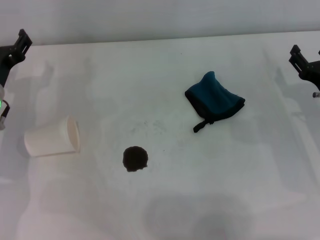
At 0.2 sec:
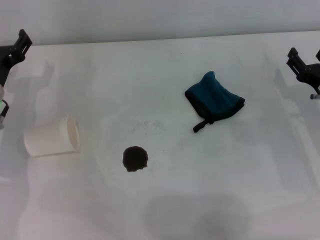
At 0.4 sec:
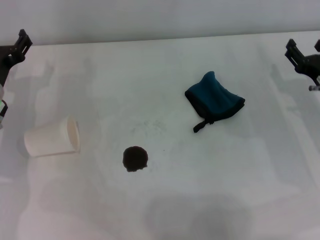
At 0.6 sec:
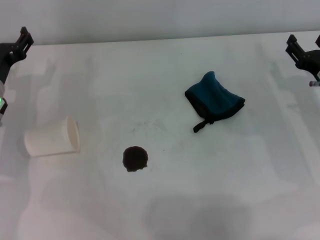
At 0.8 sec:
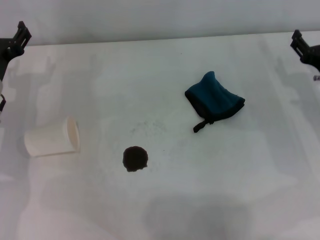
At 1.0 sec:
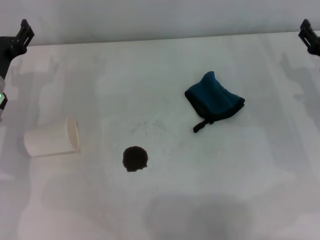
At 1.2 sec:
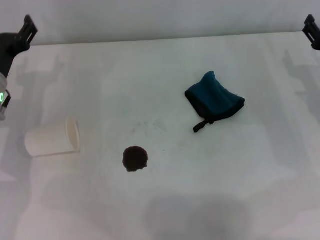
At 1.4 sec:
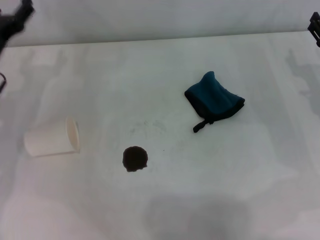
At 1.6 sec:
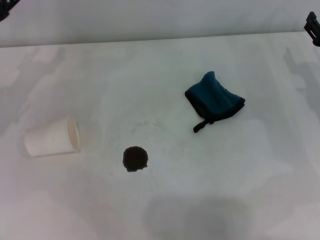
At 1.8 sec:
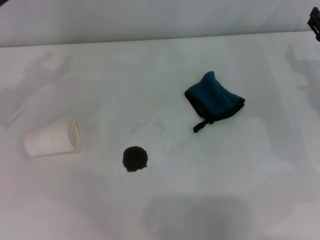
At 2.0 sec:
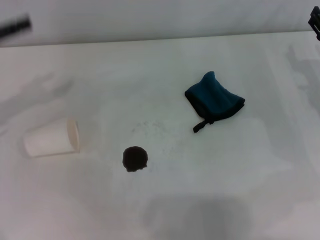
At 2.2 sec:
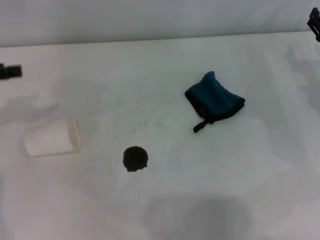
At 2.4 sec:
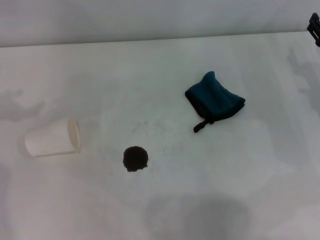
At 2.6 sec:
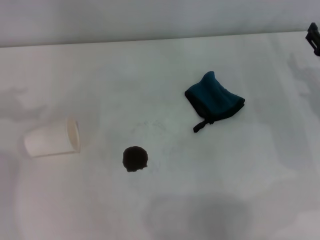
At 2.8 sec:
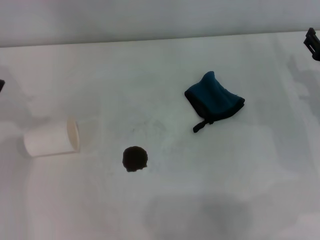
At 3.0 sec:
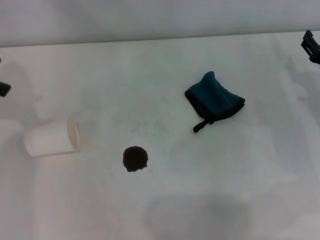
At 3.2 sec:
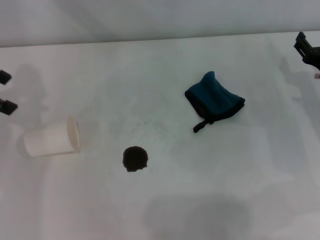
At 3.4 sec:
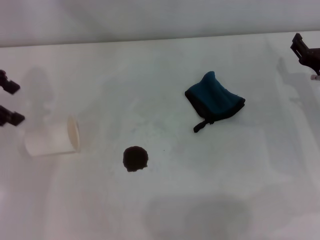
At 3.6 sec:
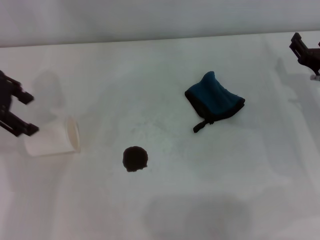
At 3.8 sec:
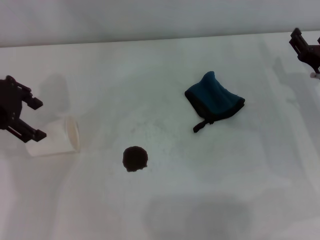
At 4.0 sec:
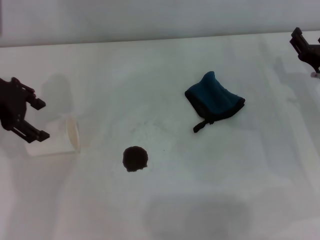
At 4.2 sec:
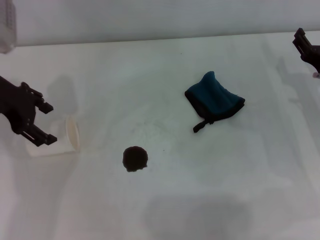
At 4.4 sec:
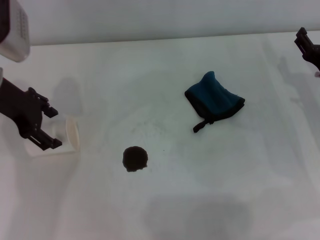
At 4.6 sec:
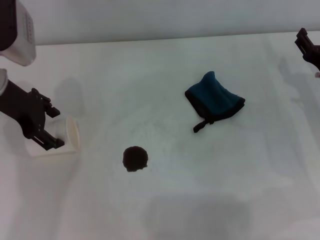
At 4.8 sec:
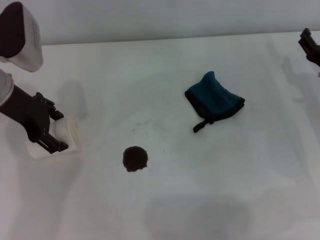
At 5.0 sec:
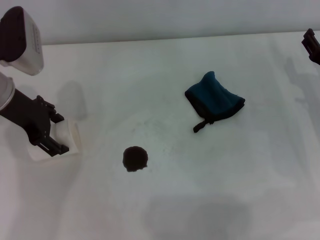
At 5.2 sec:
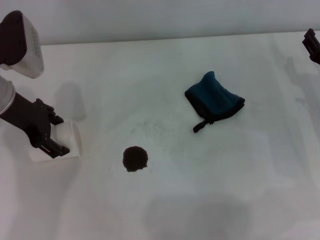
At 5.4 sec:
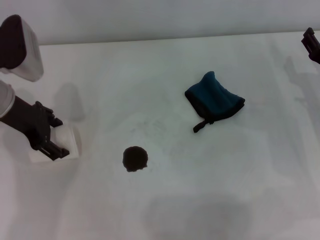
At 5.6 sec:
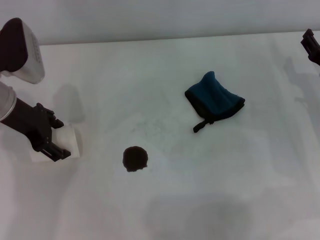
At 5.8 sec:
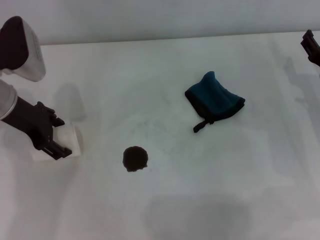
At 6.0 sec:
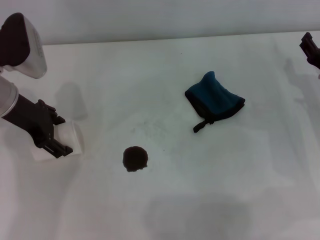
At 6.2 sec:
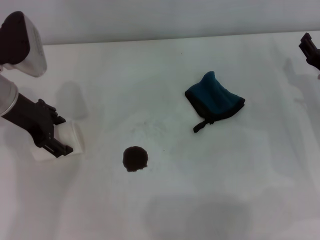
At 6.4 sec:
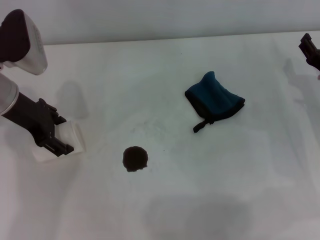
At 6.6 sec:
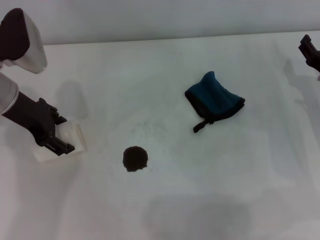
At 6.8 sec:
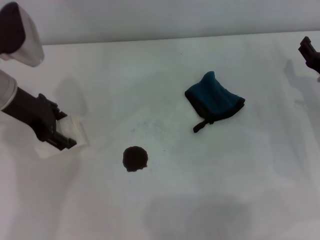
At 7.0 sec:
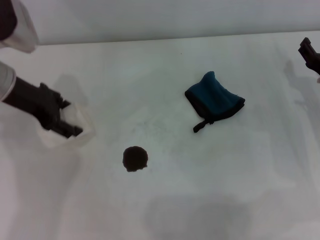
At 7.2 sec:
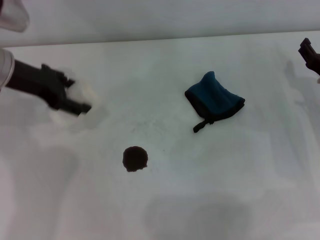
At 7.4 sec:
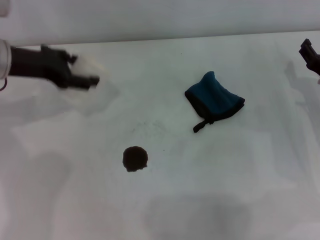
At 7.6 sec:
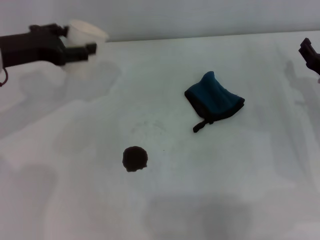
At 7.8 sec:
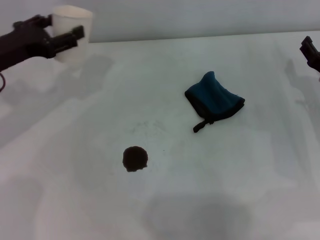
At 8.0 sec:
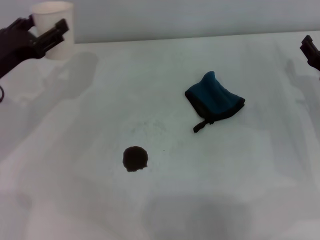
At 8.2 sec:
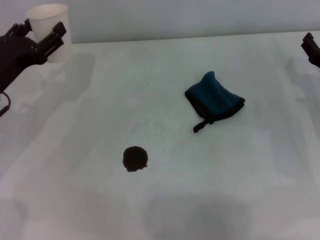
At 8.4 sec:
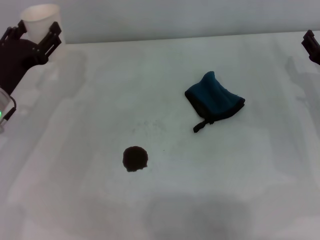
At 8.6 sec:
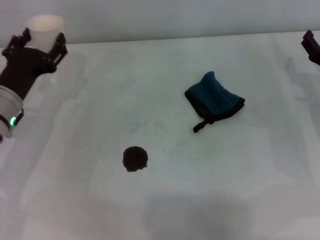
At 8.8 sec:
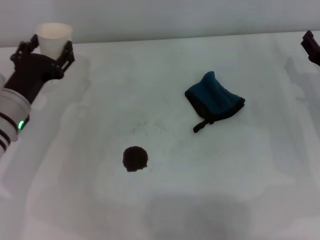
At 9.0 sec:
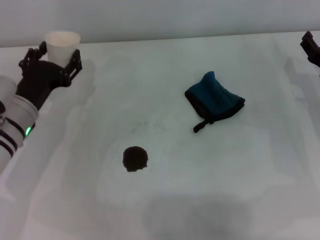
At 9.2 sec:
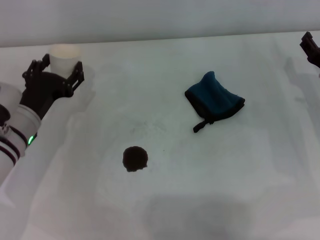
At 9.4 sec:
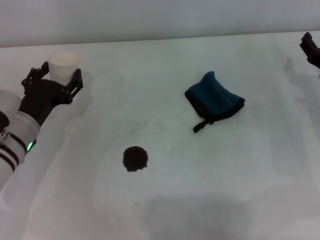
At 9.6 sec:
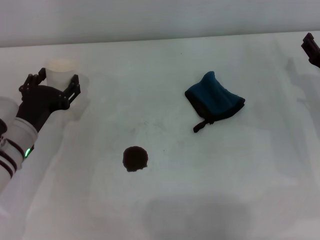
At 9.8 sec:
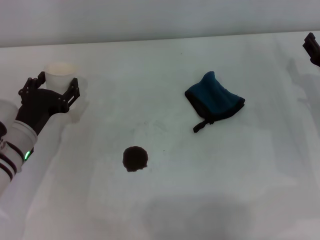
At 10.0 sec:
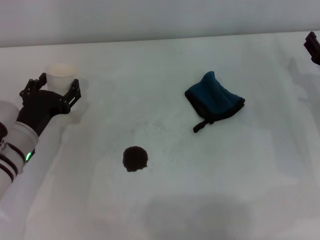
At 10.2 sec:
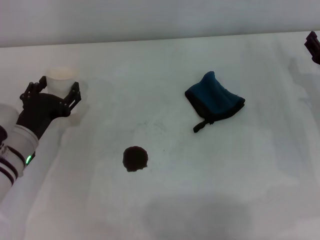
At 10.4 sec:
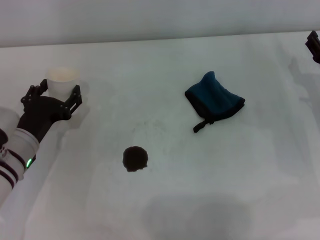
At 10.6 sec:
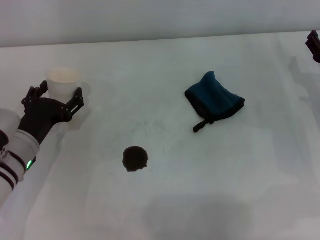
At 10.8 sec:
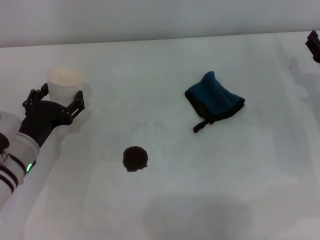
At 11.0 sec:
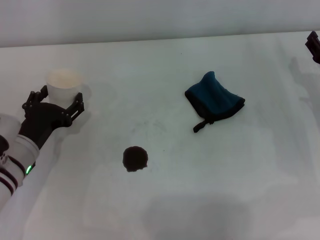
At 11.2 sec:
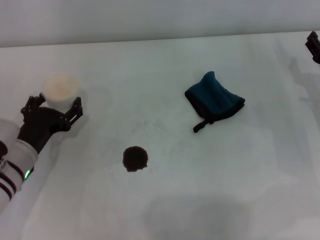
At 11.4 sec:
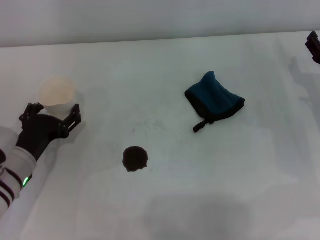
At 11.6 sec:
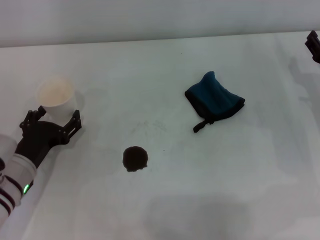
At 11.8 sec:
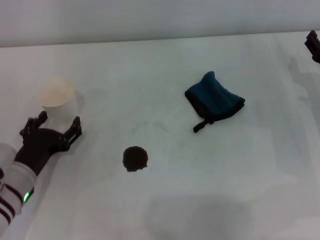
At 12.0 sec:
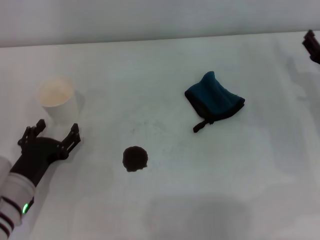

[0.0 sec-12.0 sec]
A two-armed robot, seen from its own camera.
Step, 0.0 sec to 5.0 sec: Grasp the paper cup with the left gripper.
Step, 5.2 sec to 11.4 sec: Stand the paper cup upright with the left gripper.
0.0 sec to 1.6 sec: The right gripper ends up approximately 5 cm from where it was; the left gripper travels upward by some 5 cm.
1.6 sec to 3.0 sec: The left gripper moves upward, approximately 15 cm.
3.0 sec to 4.4 sec: The left gripper heads downward and to the right, covering some 15 cm.
4.4 sec to 6.0 sec: The grippers make only small movements.
7.6 sec to 9.0 sec: The left gripper shifts roughly 10 cm downward and backward.
9.0 sec to 10.4 sec: The grippers move only a little.
10.4 sec to 12.0 sec: The left gripper shifts approximately 5 cm backward.

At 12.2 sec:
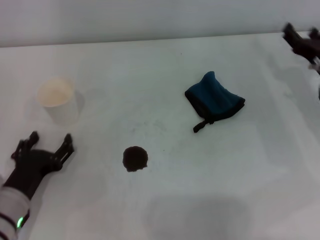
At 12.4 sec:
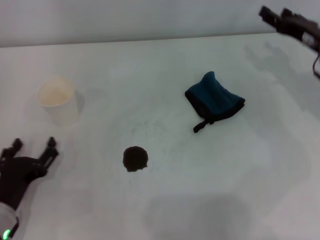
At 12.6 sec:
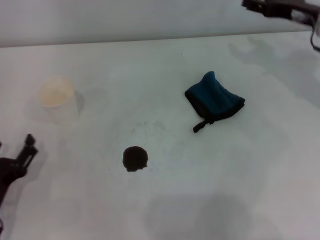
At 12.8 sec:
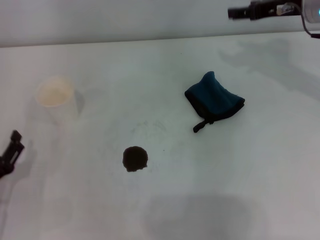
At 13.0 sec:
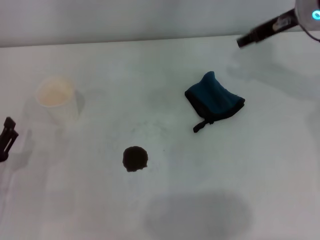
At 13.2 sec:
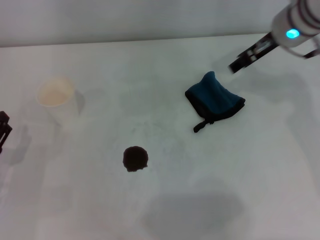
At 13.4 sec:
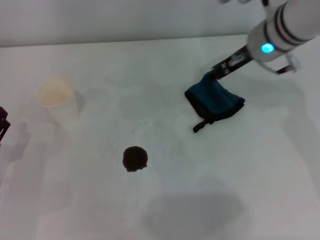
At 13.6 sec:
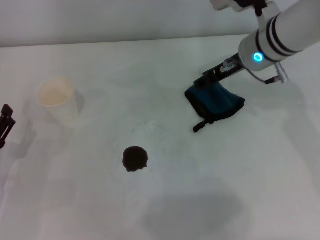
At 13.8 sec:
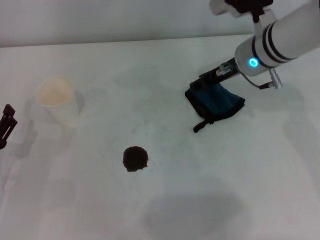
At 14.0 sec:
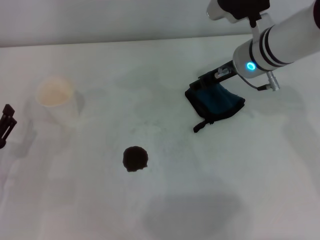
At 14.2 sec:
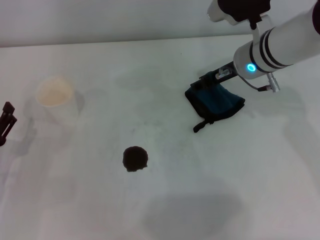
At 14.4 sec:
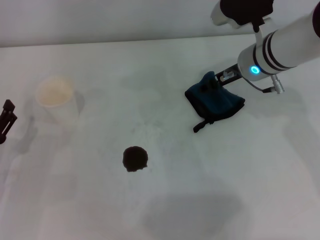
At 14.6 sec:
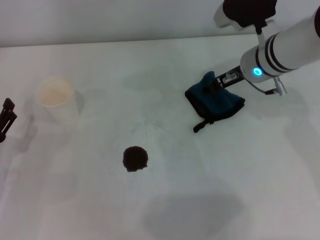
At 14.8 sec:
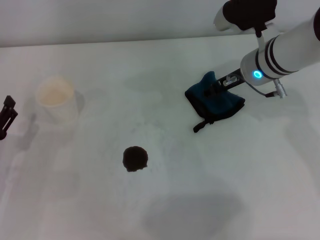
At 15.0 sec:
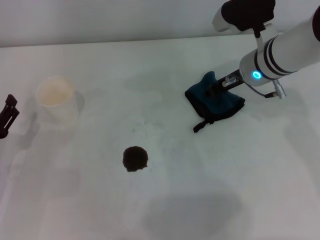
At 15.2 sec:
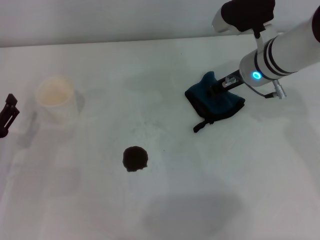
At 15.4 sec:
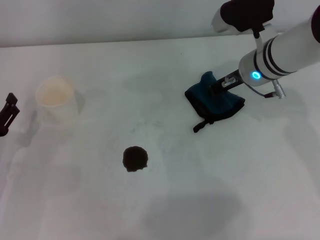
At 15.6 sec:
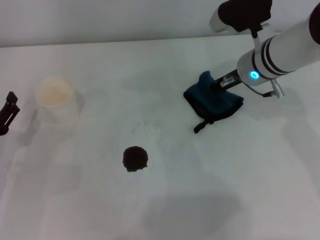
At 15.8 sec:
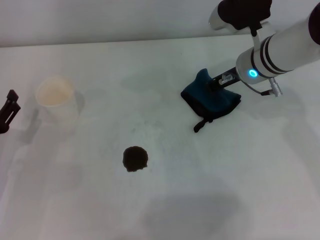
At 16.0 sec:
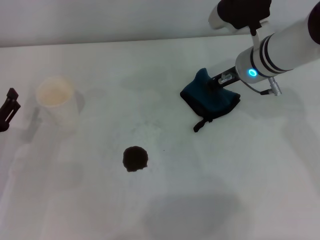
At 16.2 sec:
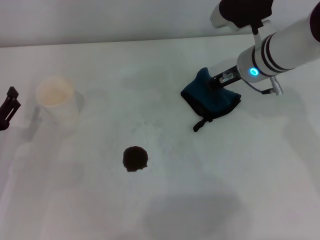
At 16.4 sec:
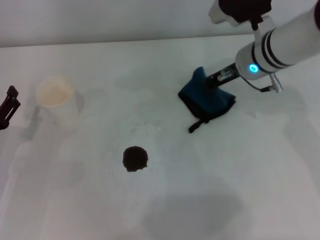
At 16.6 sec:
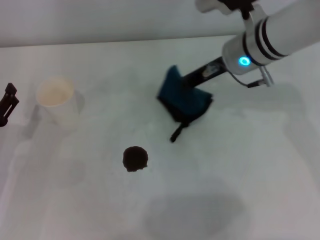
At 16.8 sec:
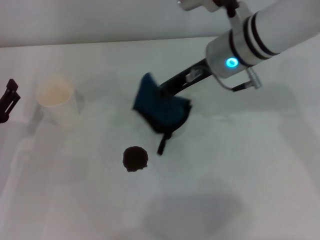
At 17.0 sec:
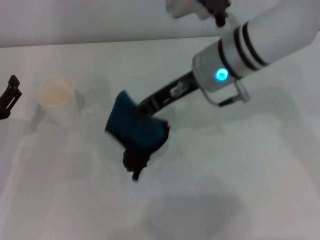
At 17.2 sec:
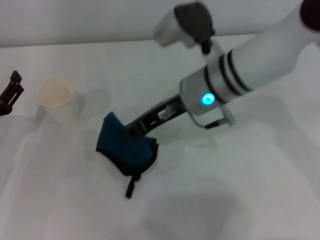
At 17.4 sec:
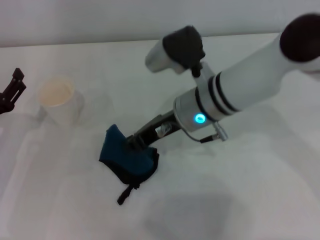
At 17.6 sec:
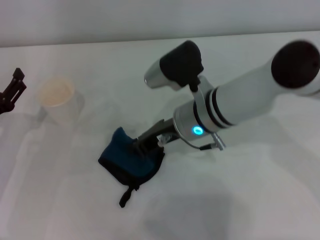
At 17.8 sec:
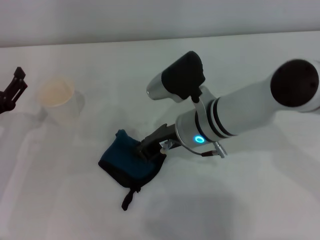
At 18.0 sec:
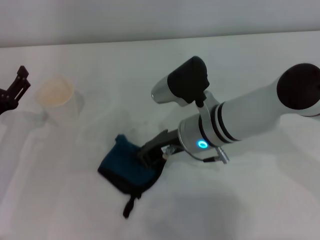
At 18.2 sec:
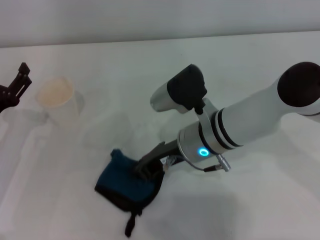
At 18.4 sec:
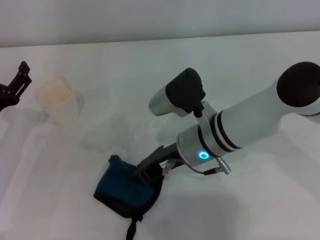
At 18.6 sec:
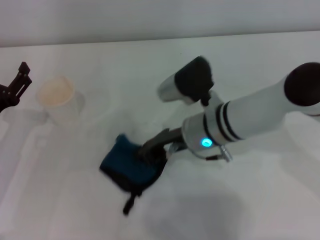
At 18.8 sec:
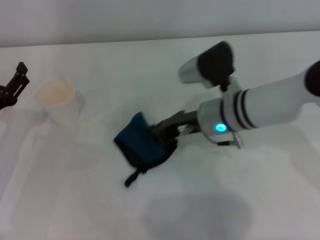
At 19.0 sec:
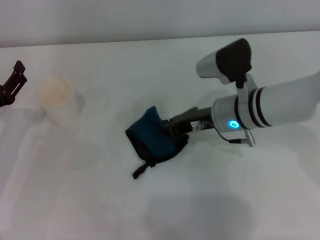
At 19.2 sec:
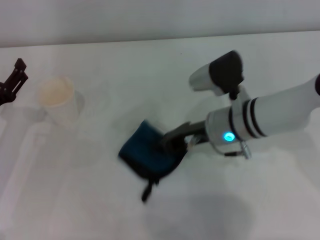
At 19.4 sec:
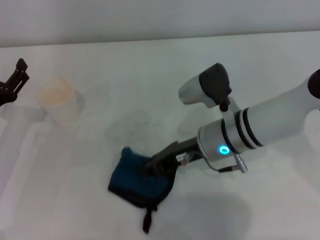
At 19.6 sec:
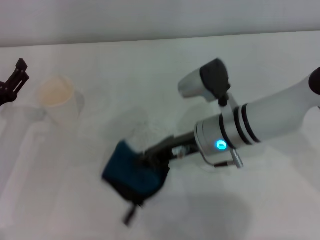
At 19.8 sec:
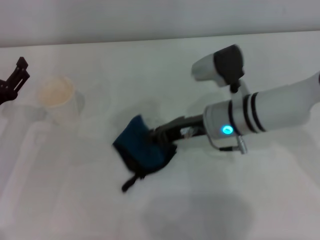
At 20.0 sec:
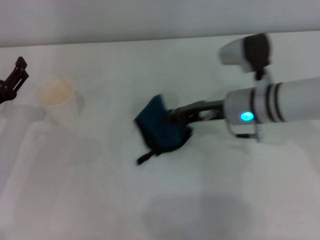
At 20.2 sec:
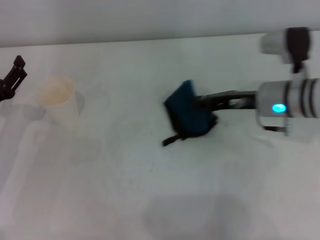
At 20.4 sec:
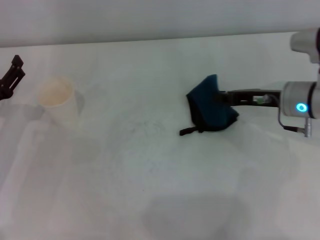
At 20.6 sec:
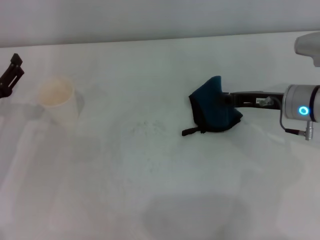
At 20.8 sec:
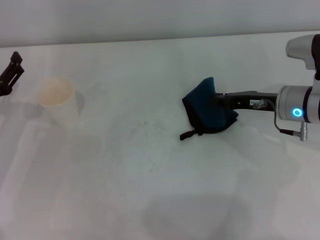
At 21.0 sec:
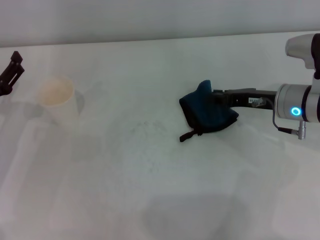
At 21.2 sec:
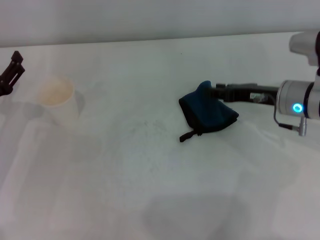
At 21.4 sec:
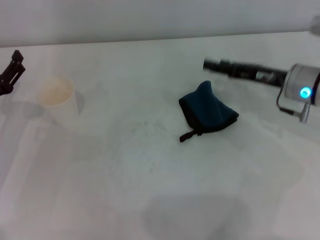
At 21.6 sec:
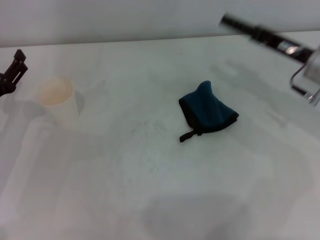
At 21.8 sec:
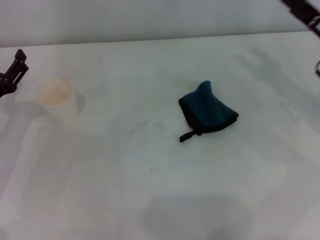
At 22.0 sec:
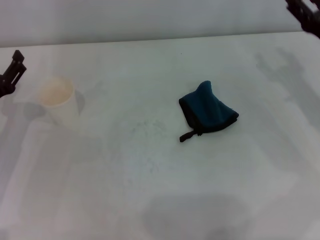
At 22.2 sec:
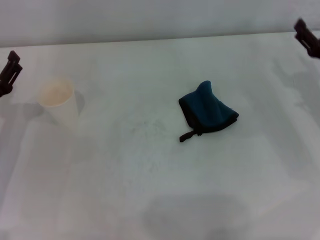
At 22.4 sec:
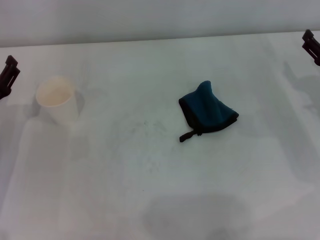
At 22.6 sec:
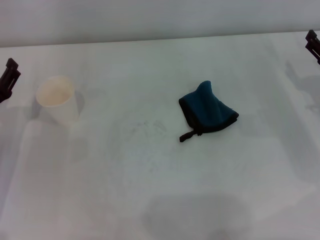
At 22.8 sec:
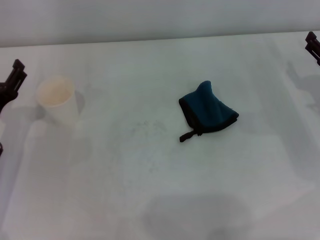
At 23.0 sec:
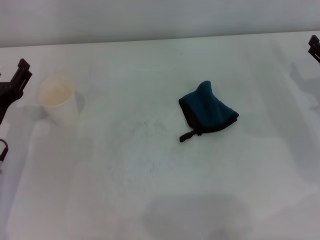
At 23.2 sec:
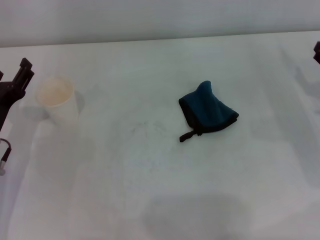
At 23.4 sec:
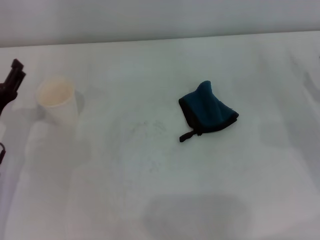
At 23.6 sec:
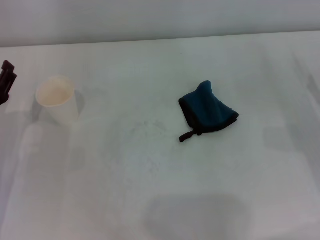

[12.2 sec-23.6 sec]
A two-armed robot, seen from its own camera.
Step, 12.2 sec to 15.4 sec: Grasp the rag with the right gripper.
Step, 15.8 sec to 20.2 sec: Wipe the stains off the table with the right gripper.
Step, 20.4 sec to 20.8 sec: Place the rag on the table with the right gripper.
12.2 sec to 13.6 sec: The right gripper is displaced to the left, upward and forward by roughly 20 cm, while the left gripper goes about 5 cm to the left.
13.6 sec to 15.0 sec: The grippers move only a little.
15.0 sec to 16.4 sec: The right gripper closes its fingers.
16.4 sec to 17.8 sec: The right gripper moves to the left, backward and downward, approximately 15 cm.
17.8 sec to 19.4 sec: The grippers move only a little.
19.4 sec to 20.8 sec: The right gripper moves to the right, roughly 15 cm.
20.8 sec to 22.2 sec: The right gripper shifts some 10 cm to the right, and opens up.
22.2 sec to 23.6 sec: The right gripper moves roughly 5 cm.
